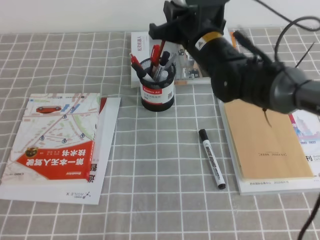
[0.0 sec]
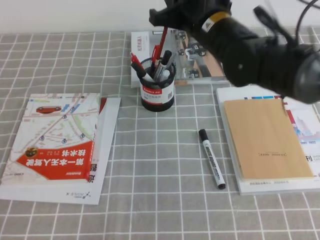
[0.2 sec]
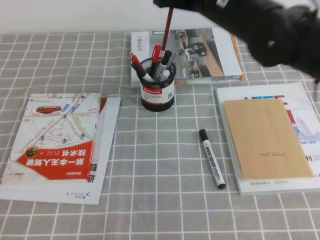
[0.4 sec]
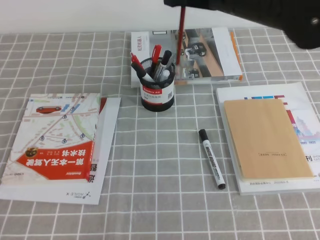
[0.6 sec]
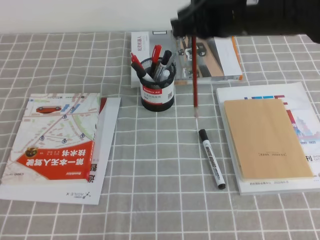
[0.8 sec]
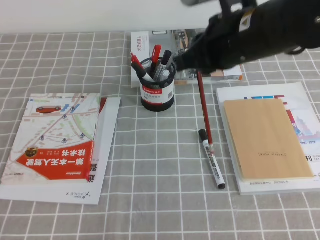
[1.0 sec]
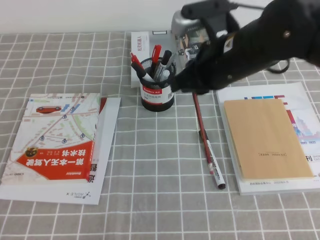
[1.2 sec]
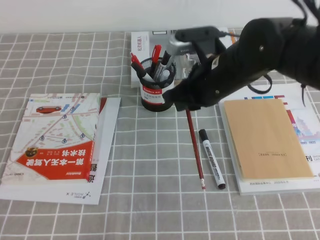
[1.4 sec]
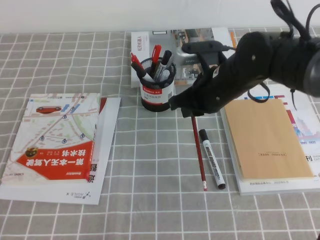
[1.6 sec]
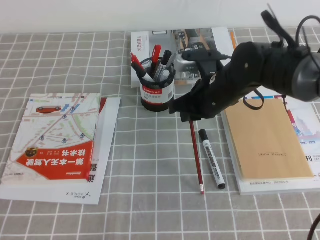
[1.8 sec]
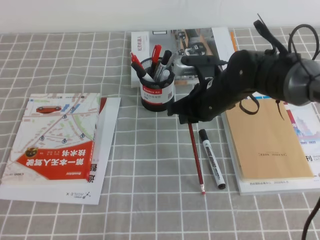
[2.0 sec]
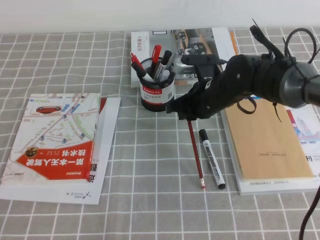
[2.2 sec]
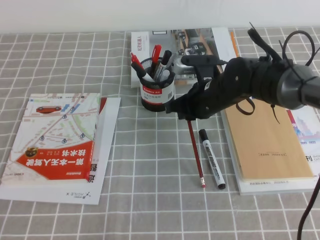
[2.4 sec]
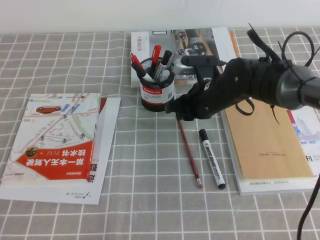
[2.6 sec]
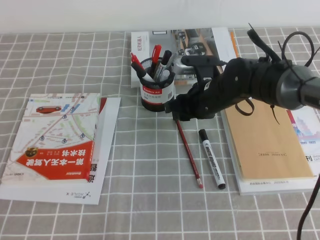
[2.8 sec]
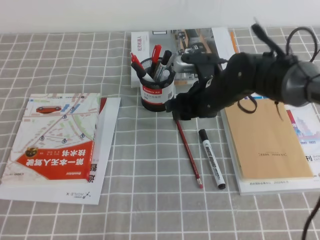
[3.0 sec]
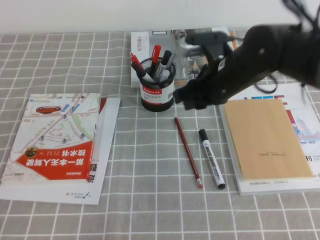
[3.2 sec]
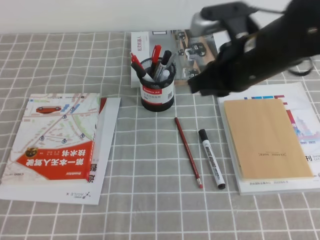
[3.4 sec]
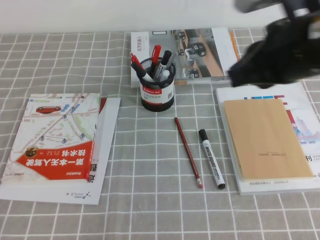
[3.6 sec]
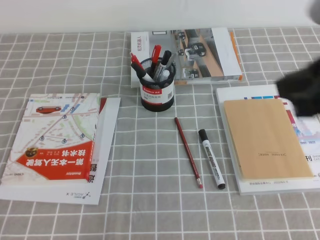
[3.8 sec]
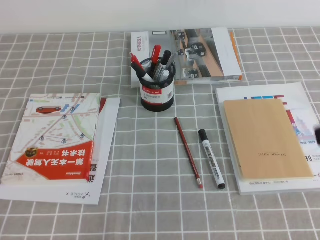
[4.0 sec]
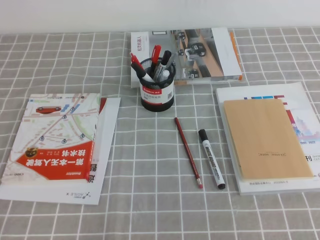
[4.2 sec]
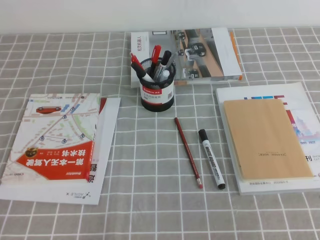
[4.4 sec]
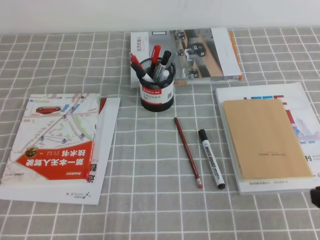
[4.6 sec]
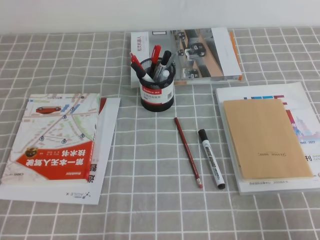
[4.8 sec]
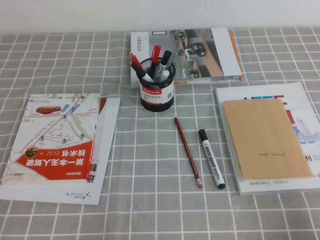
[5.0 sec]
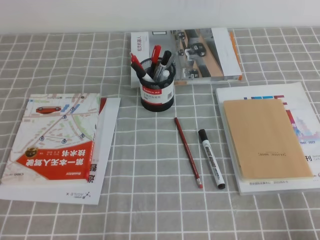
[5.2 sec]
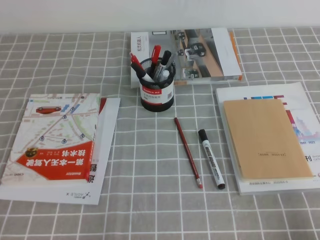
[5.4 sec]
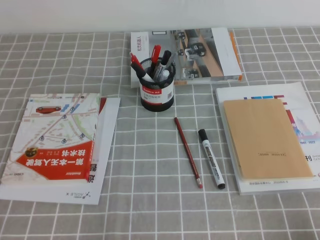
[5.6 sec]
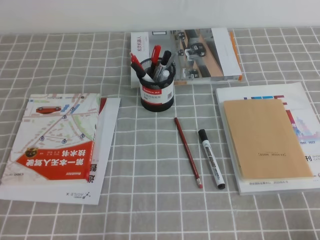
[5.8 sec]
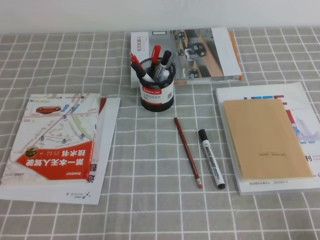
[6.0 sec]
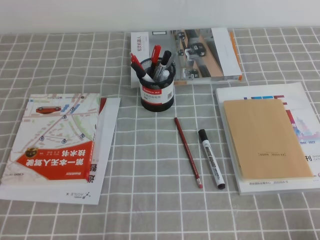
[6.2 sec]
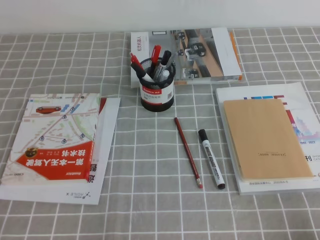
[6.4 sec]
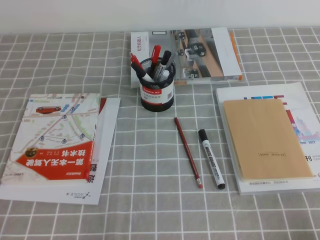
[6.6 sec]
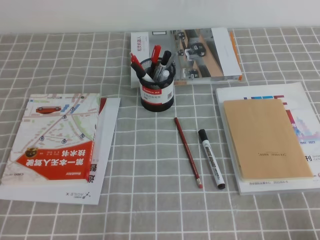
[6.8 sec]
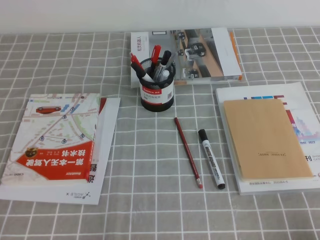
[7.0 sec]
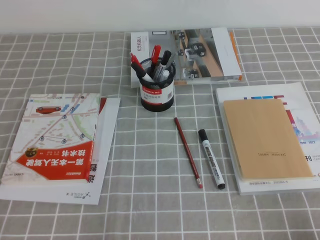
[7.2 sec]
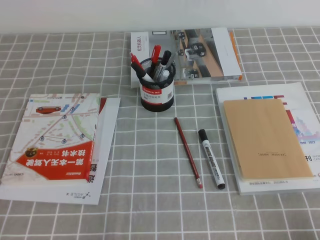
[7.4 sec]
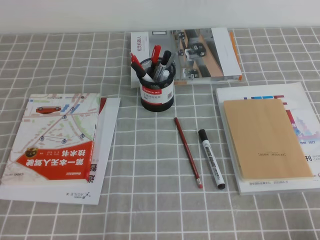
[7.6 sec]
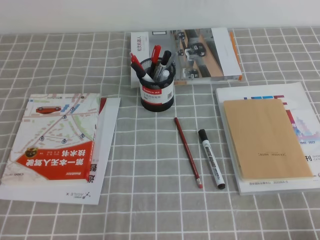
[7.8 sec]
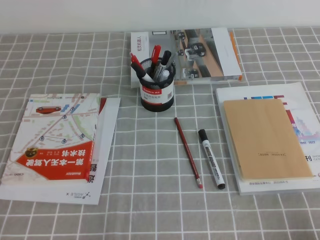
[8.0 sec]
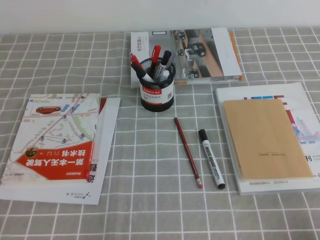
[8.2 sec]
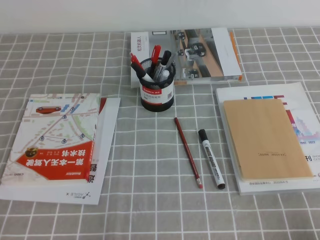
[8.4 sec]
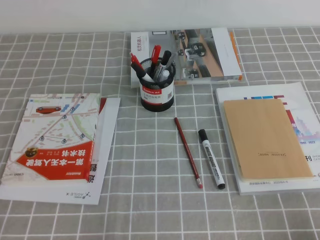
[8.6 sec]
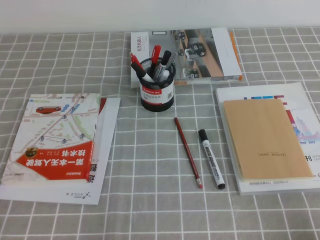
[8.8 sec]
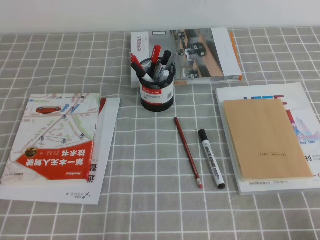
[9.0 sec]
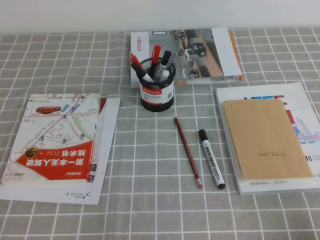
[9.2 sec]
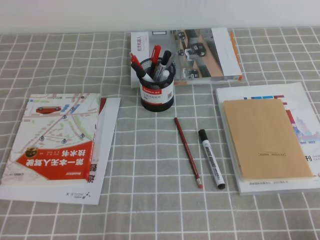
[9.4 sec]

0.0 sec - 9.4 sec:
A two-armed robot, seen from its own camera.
Step, 0.0 sec - 9.4 sec: Pick up the pen from the pen holder.
0.0 sec - 1.6 sec: The right gripper moves backward, roughly 5 cm, and travels upward and back again, approximately 10 cm each way.
1.6 sec - 3.2 sec: The right gripper opens up.
3.2 sec - 4.8 sec: The right gripper is displaced backward and to the right by approximately 30 cm, and closes its fingers.
6.2 sec - 9.4 sec: Both grippers stay about where they are.
